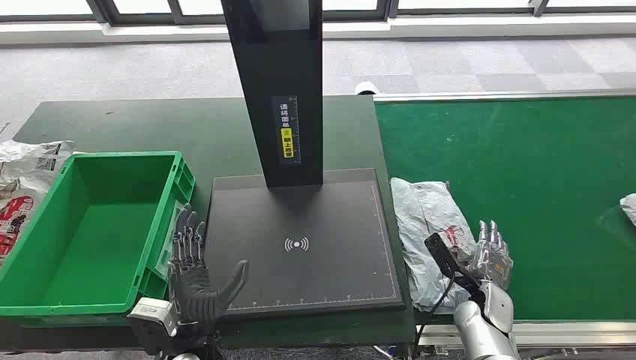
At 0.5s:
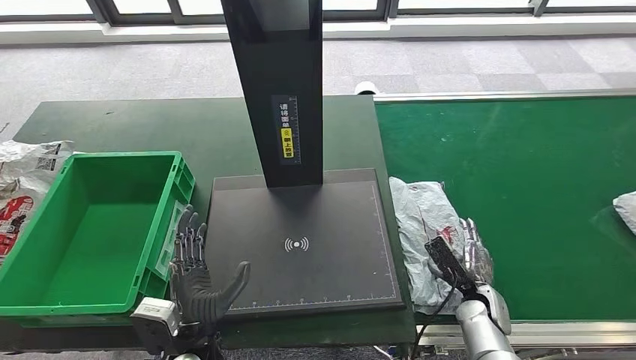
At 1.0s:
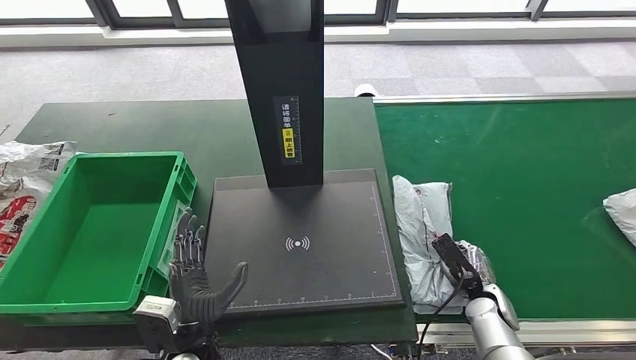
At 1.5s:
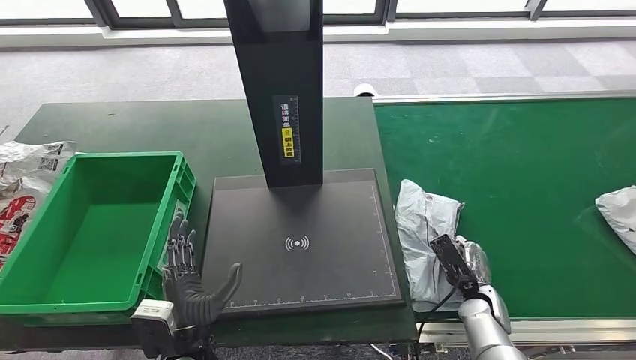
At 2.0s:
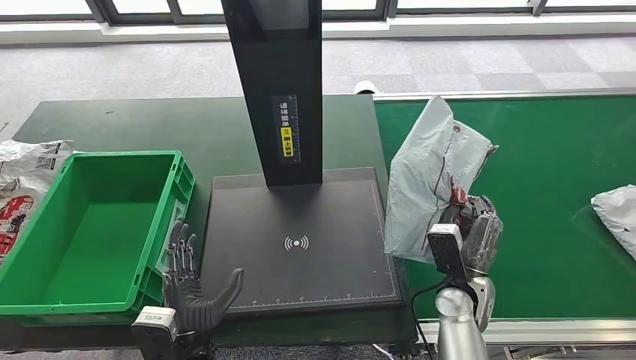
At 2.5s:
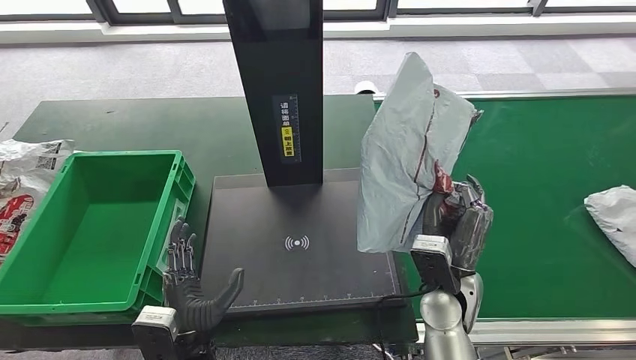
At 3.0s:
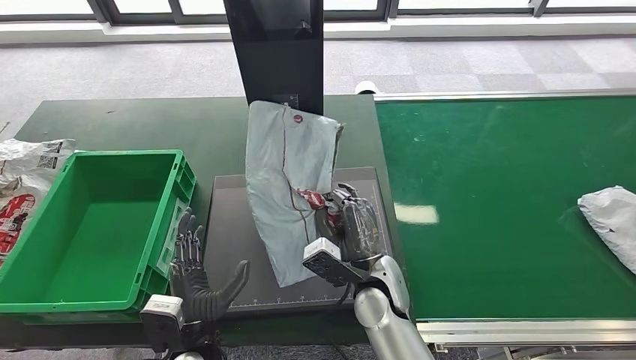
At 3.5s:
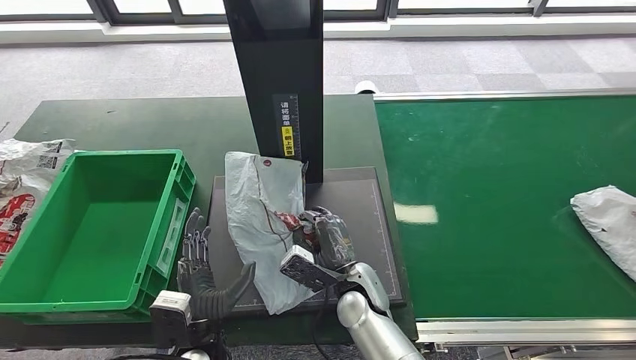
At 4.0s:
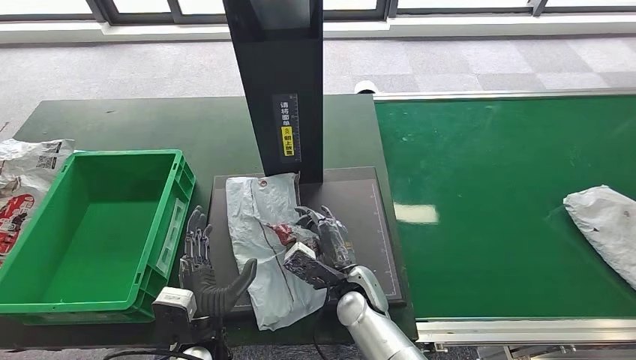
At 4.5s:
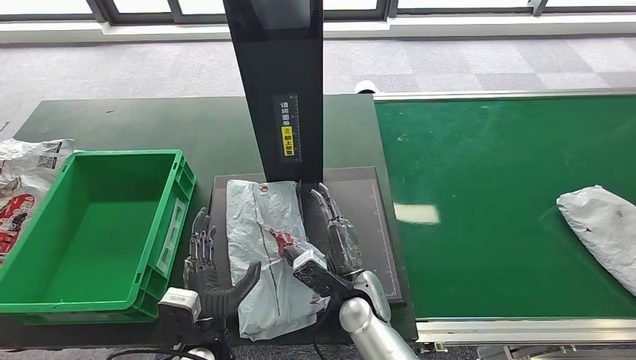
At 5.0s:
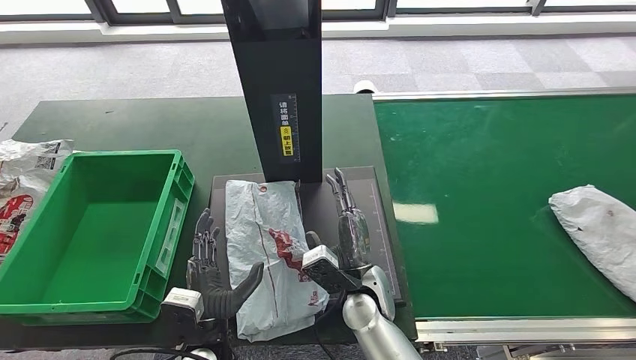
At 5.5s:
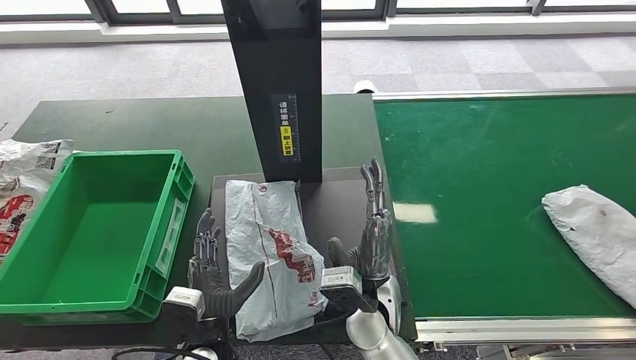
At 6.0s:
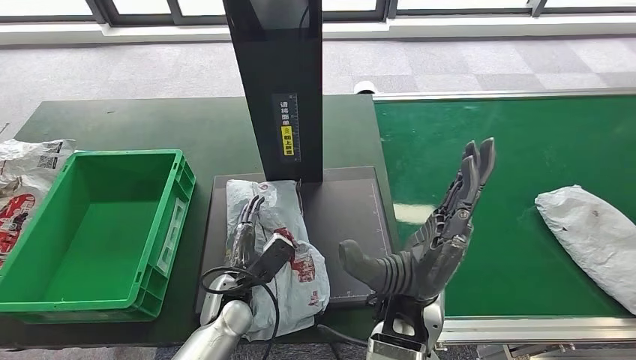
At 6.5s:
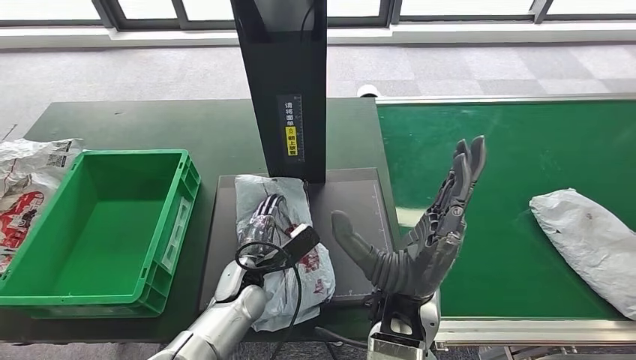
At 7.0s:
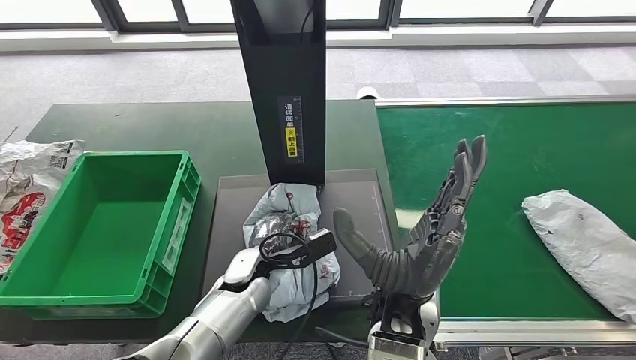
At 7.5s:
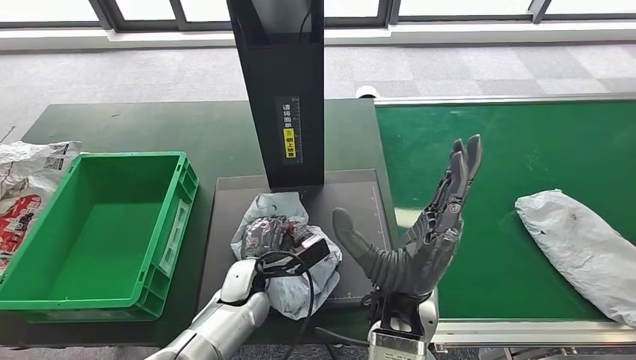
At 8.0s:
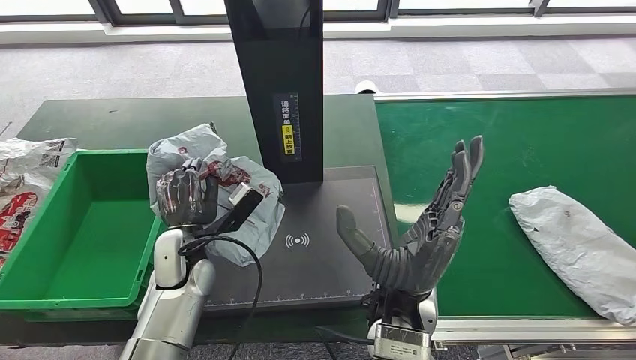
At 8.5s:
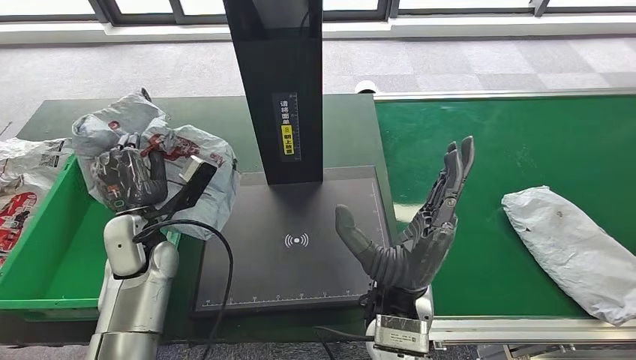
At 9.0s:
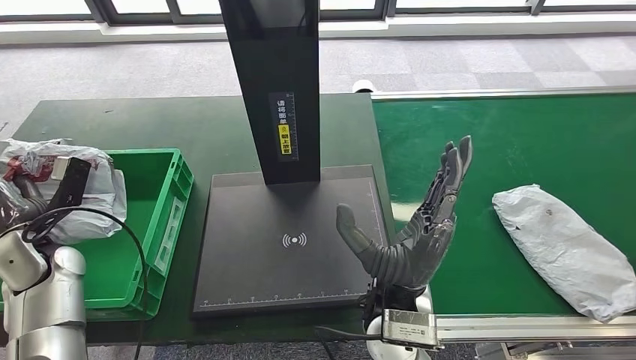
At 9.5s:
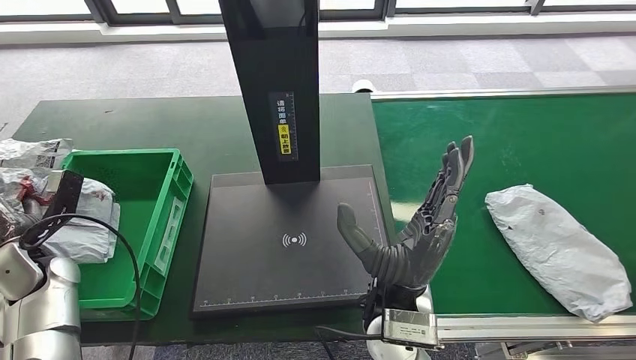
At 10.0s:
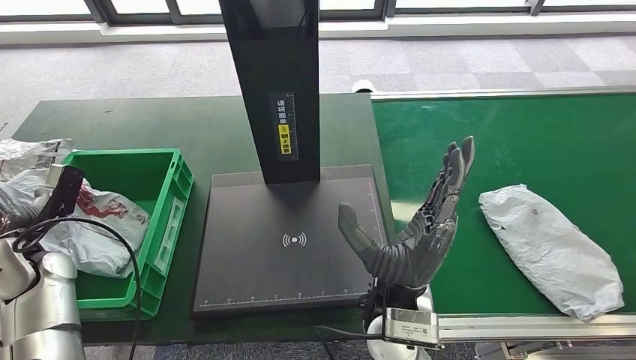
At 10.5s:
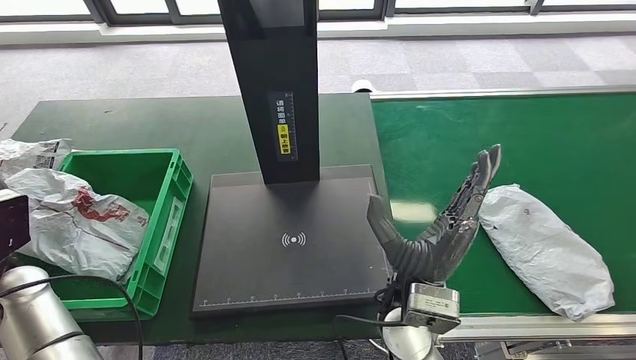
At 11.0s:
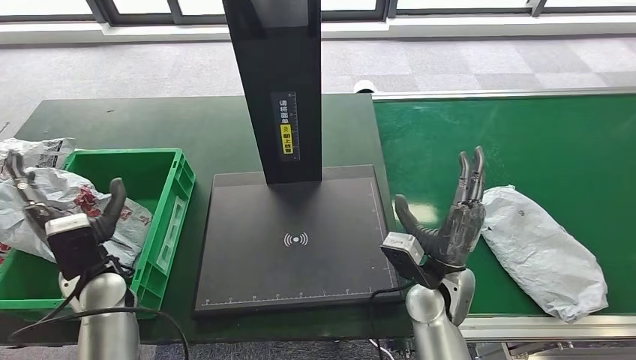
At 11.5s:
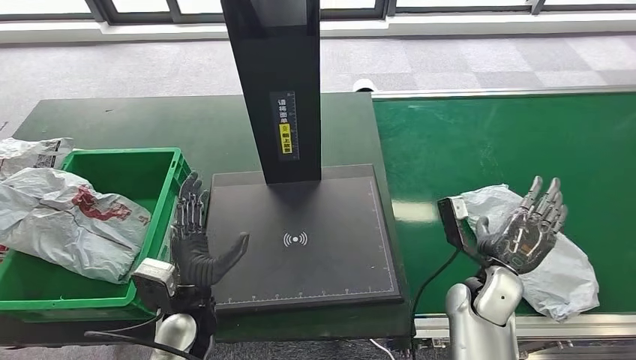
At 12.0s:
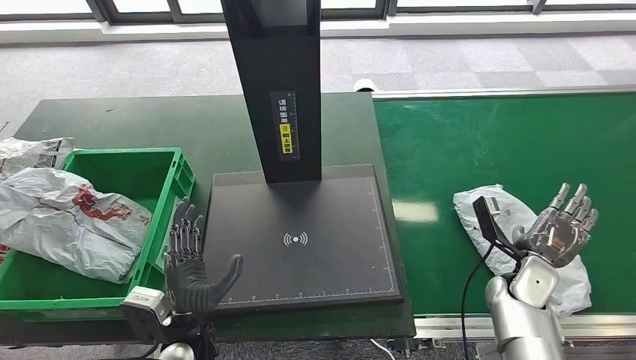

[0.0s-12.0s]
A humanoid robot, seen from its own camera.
Step, 0.0s to 2.0s: Take the parcel off the conveyor belt.
Step, 2.5s to 4.5s: Place the parcel onto the inbound machine.
Step, 6.0s to 8.0s: Pick up the parcel from the inbound machine.
Step, 8.5s to 11.0s: Put the parcel inside the courier box.
2.0s to 4.0s: The right hand moves to the left, about 20 cm.
4.0s to 6.0s: The left hand goes about 5 cm forward, while the right hand travels upward by roughly 15 cm.

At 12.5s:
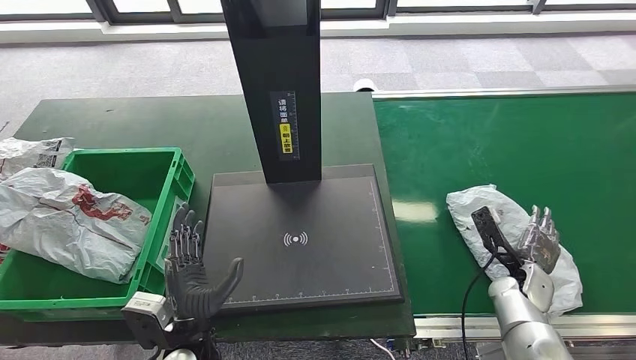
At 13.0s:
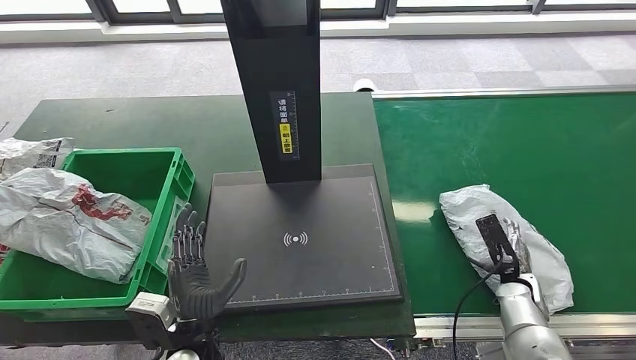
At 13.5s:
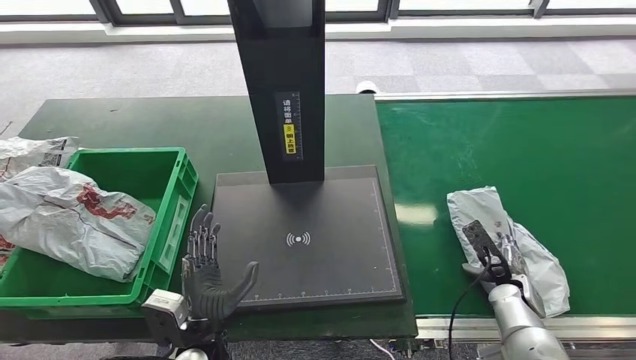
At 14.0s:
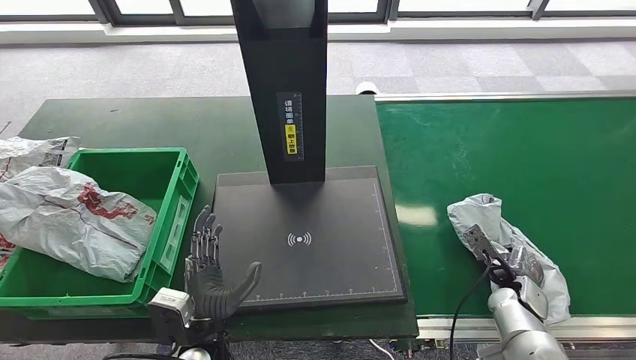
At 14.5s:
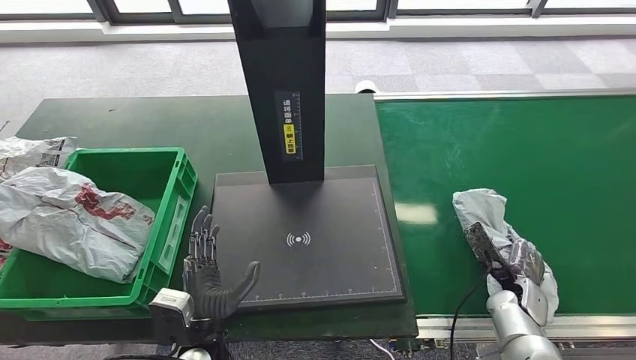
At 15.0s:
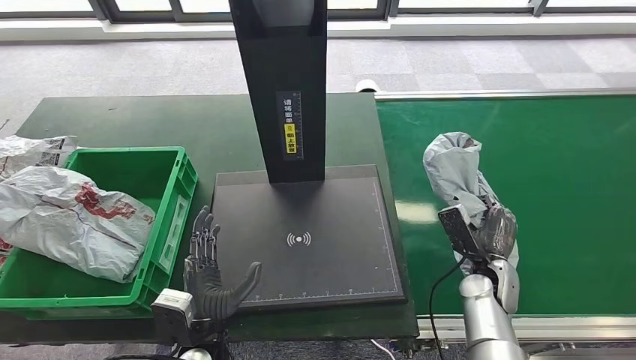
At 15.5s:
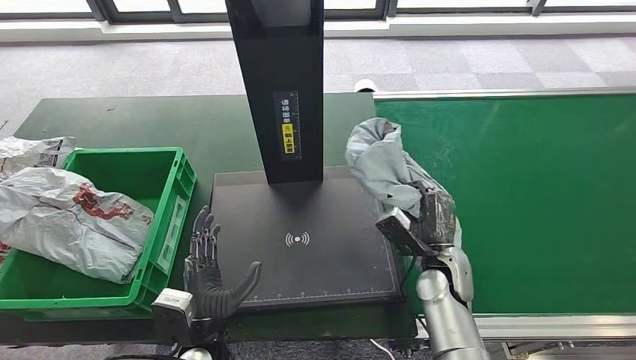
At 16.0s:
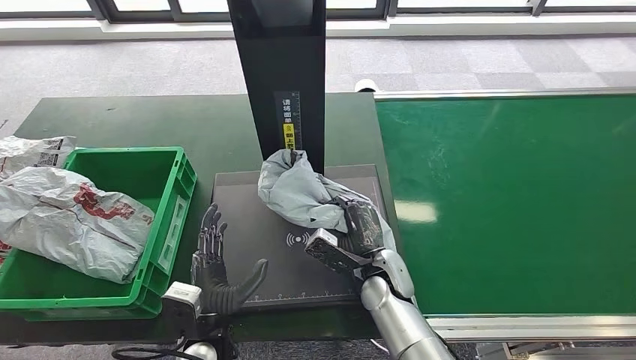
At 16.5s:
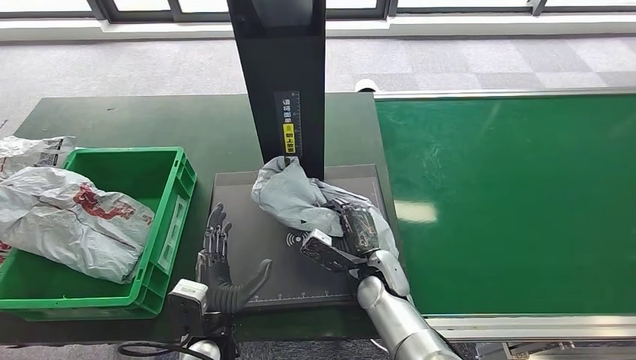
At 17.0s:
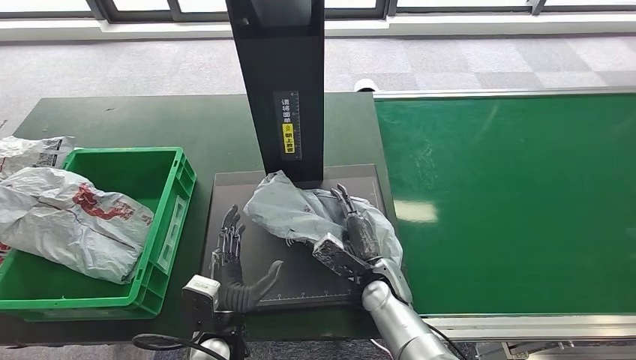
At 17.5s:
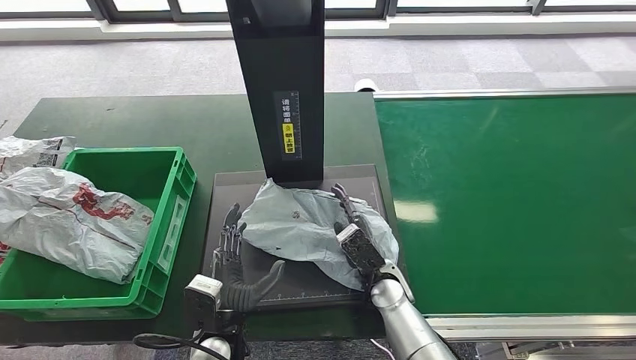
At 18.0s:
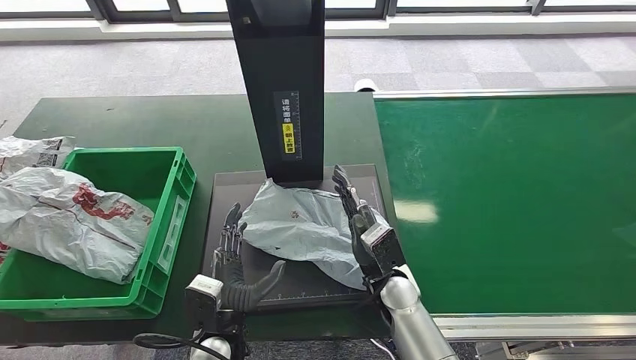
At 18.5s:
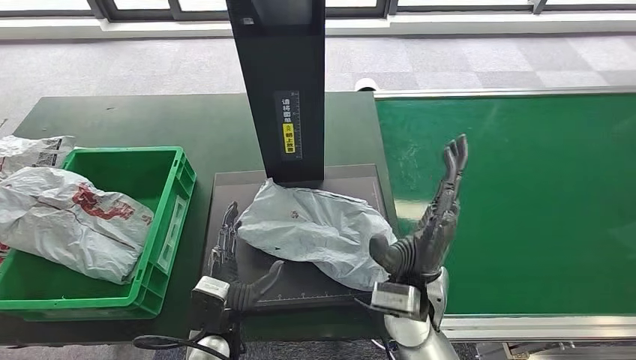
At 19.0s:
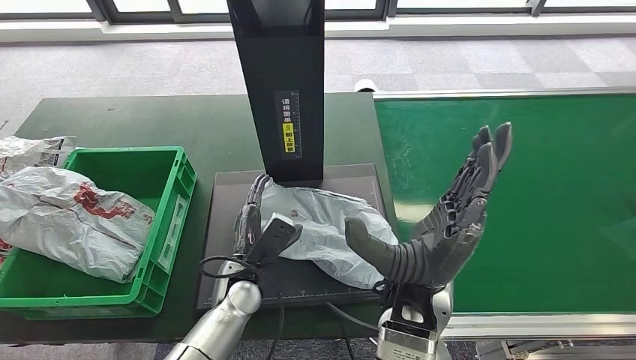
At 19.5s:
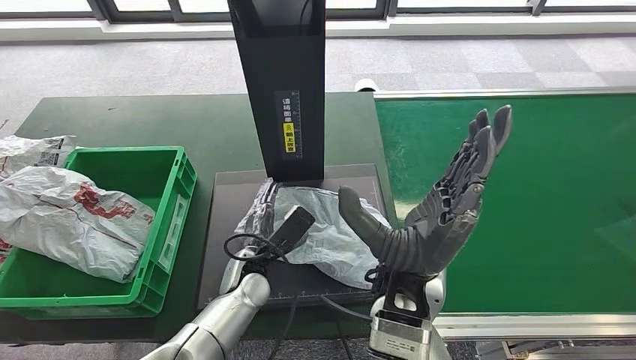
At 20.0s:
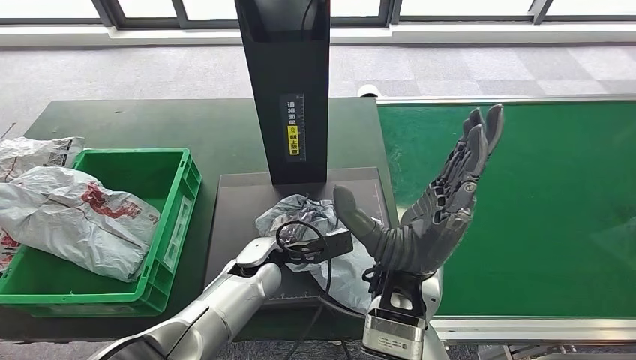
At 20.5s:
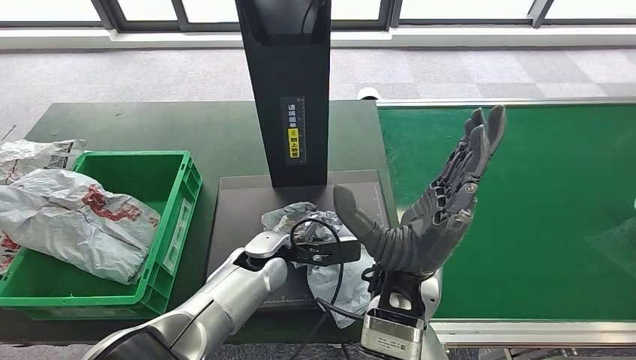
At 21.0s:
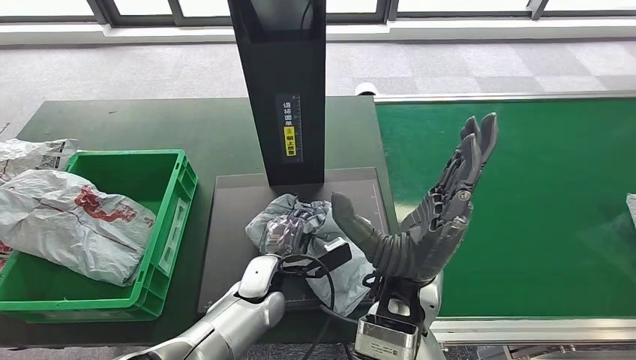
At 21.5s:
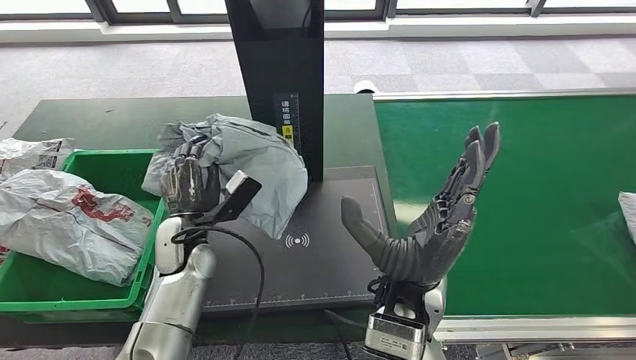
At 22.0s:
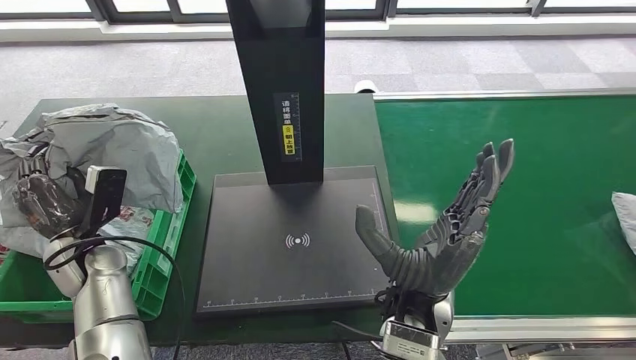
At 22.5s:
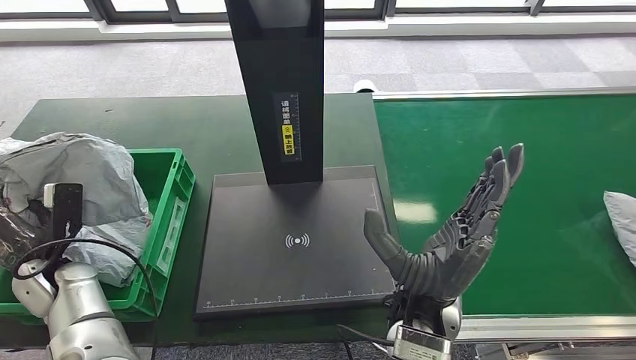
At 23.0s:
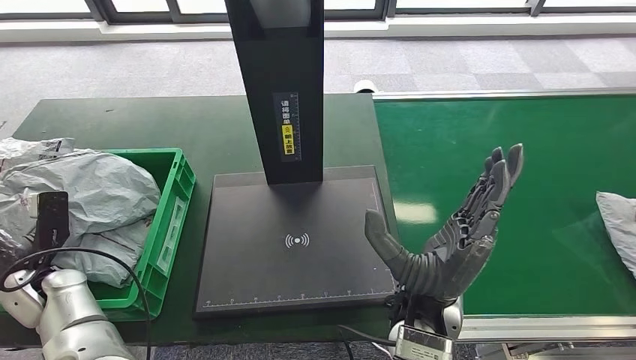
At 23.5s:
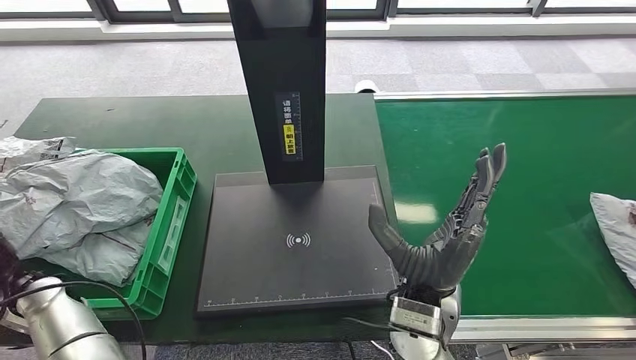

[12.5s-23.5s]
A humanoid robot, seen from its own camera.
Step, 12.5s to 14.5s: Pick up the parcel from the conveyor belt.
Step, 15.0s to 18.0s: Place the parcel onto the inbound machine.
Step, 18.5s to 21.5s: Pick up the parcel from the inbound machine.
